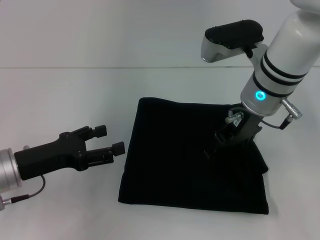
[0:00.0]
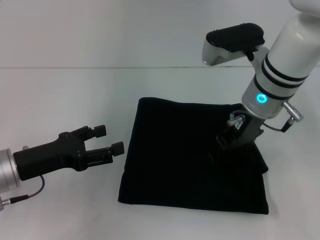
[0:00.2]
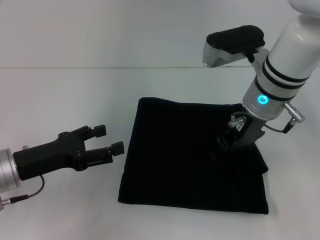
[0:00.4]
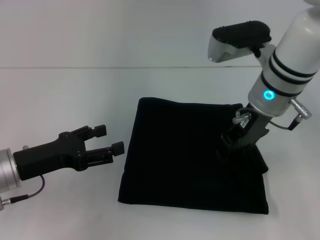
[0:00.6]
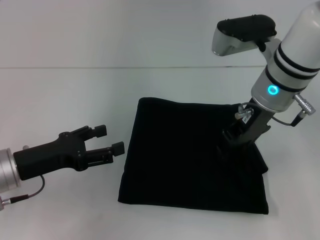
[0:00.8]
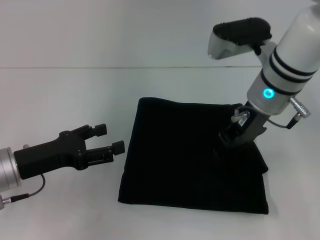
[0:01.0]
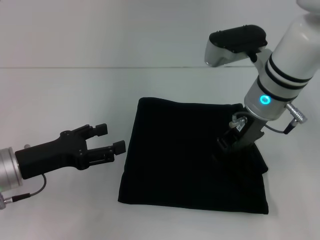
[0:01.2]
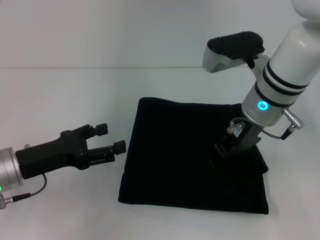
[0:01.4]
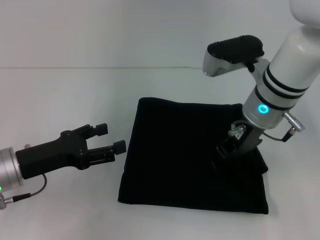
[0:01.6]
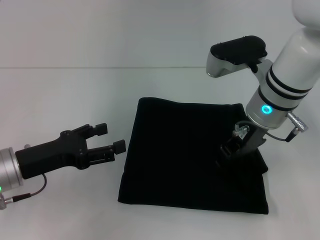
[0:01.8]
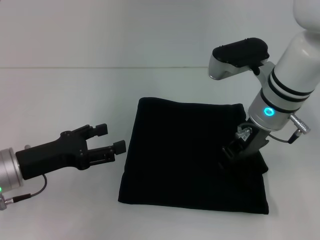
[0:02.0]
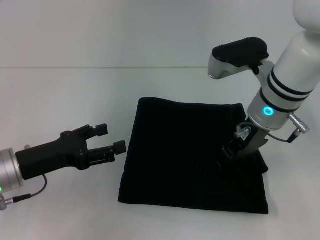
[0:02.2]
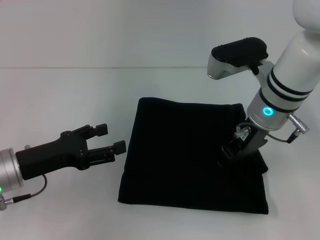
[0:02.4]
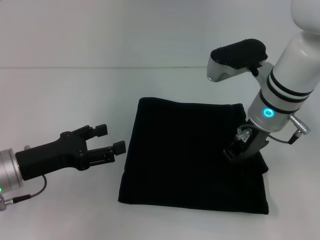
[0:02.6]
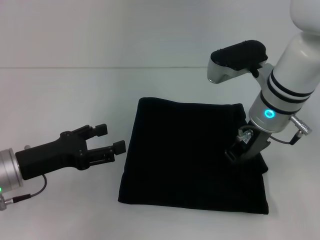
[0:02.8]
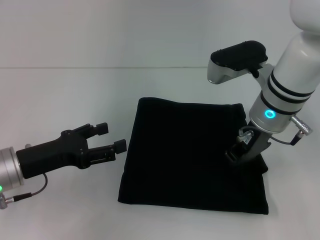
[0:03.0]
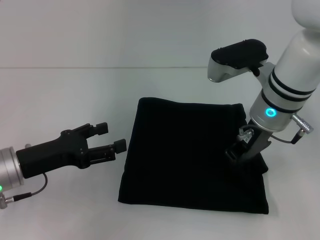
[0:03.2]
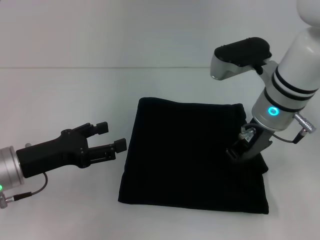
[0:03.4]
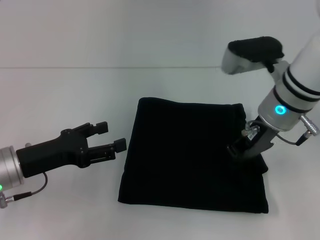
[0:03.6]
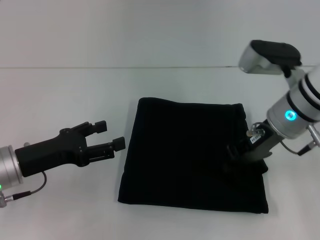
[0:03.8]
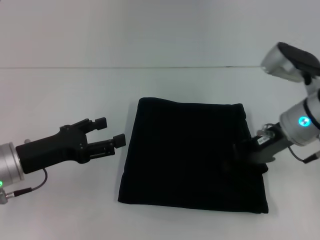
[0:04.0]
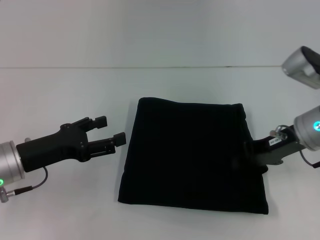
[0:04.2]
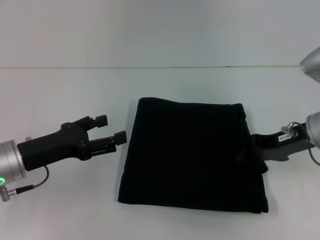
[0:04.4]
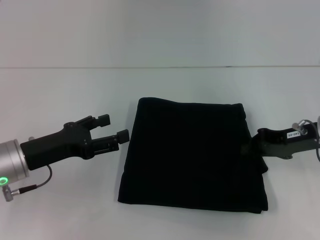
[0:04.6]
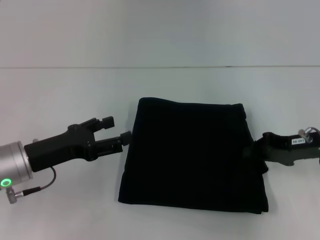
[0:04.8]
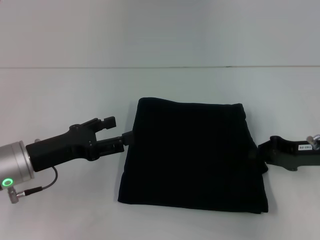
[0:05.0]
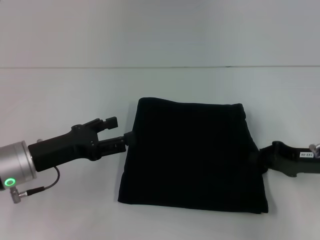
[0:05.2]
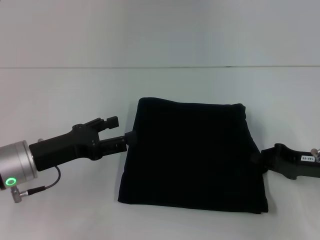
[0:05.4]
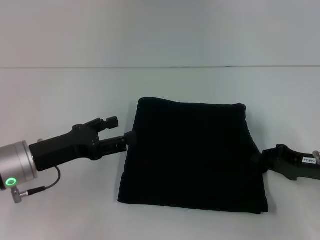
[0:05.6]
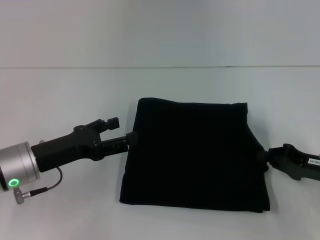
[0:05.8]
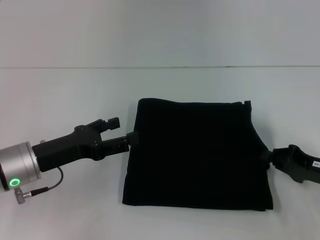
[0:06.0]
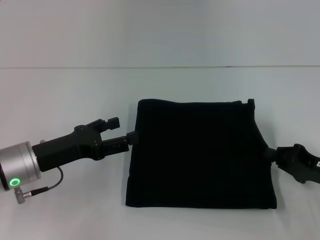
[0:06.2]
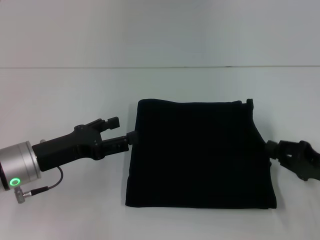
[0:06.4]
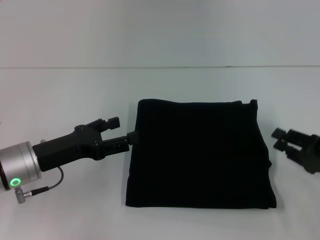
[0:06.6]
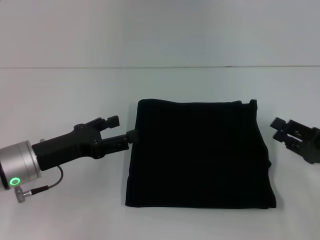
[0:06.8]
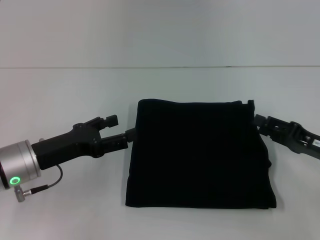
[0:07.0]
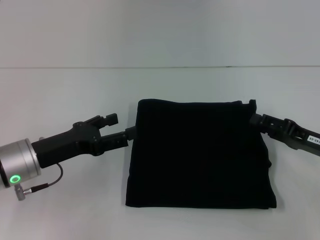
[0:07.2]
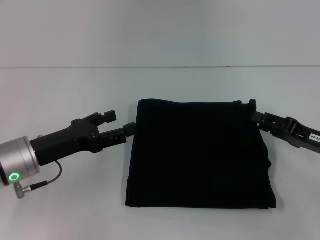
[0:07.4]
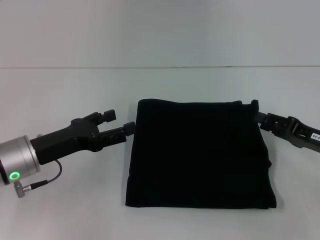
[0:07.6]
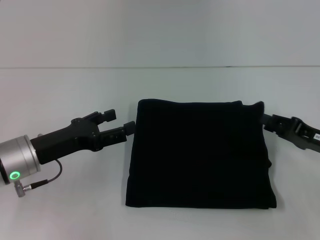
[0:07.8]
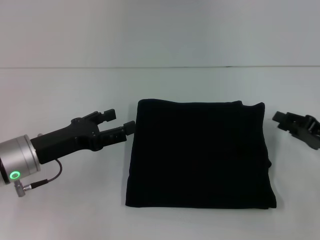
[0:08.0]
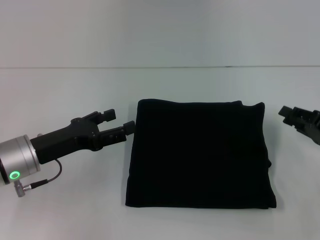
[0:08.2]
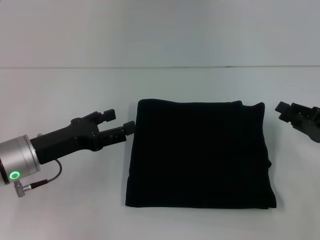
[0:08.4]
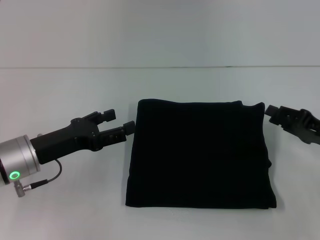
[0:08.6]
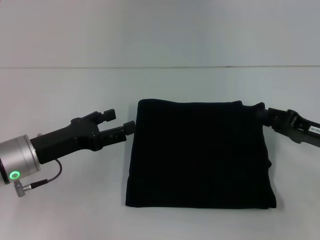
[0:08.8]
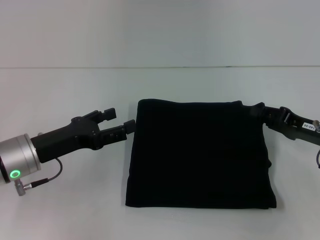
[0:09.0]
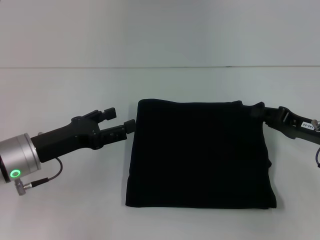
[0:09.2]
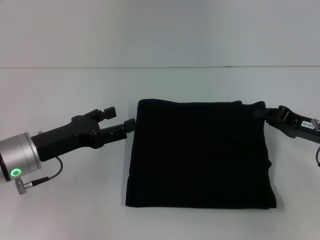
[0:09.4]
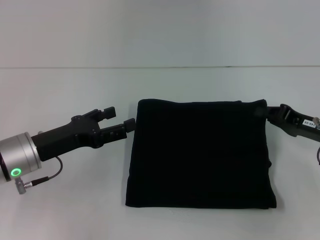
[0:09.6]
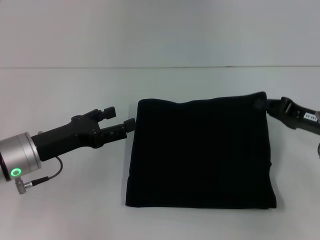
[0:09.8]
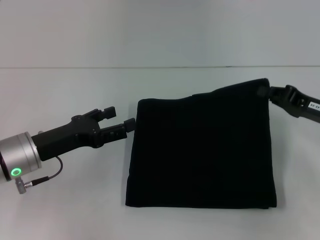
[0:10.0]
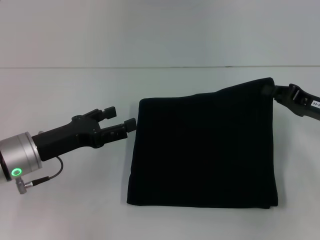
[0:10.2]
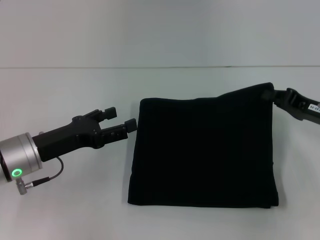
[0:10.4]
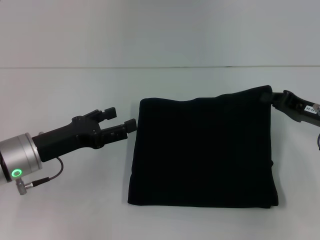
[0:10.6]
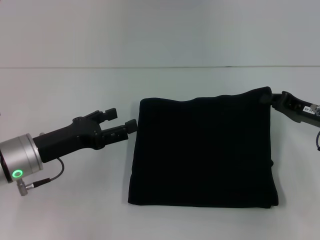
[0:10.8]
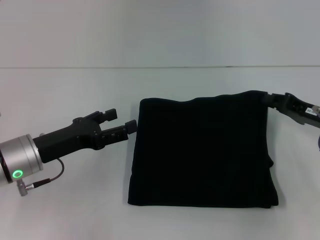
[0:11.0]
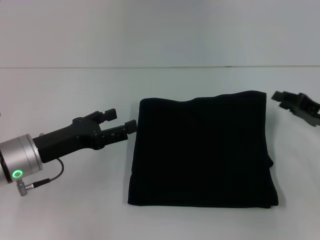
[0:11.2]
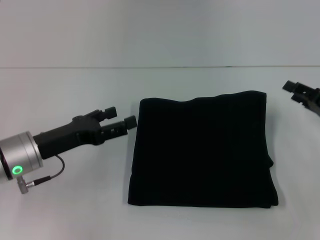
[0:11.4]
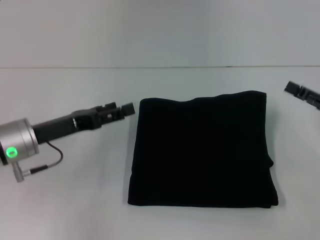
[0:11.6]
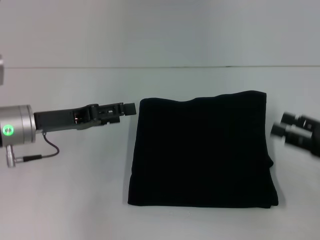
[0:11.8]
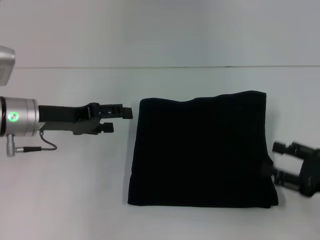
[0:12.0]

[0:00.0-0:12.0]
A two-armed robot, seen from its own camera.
0:00.0 to 0:01.6: The right gripper closes up.
0:01.6 to 0:03.0: The right gripper closes its fingers.
0:03.0 to 0:04.4: The right gripper travels to the right by some 10 cm.
0:04.4 to 0:06.0: The right gripper goes some 15 cm downward, backward and to the right.
0:06.0 to 0:07.6: The right gripper opens its fingers.
0:07.6 to 0:09.0: The grippers move only a little.
0:09.0 to 0:10.4: The right gripper closes.
0:10.4 to 0:12.0: The left gripper is displaced forward by some 5 cm. The right gripper heads backward, covering roughly 10 cm, and opens.

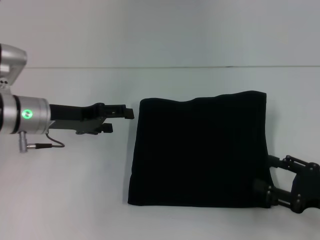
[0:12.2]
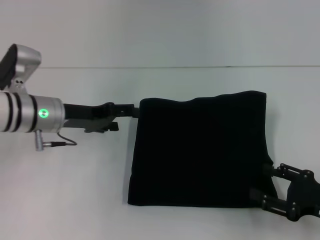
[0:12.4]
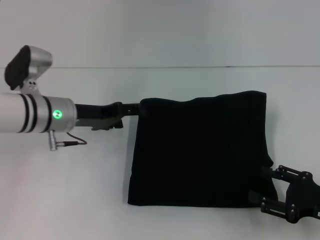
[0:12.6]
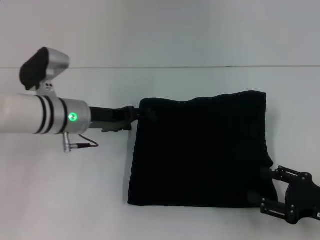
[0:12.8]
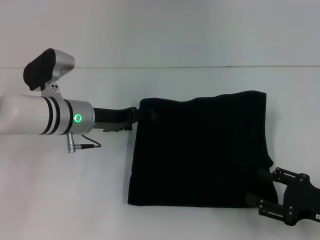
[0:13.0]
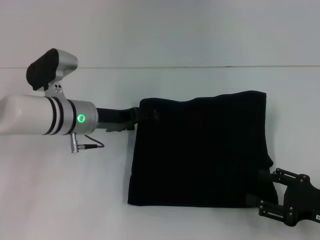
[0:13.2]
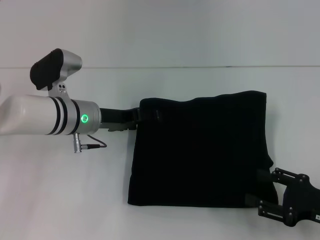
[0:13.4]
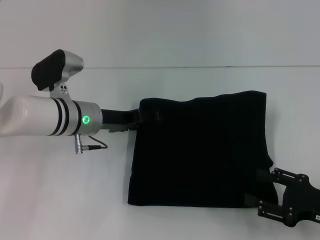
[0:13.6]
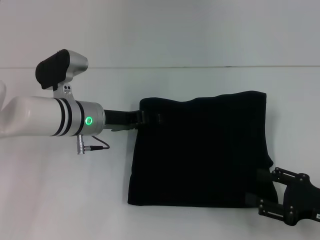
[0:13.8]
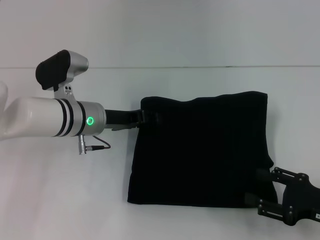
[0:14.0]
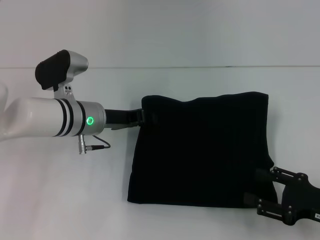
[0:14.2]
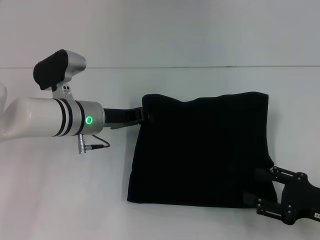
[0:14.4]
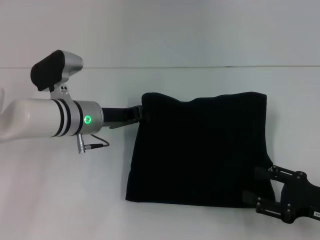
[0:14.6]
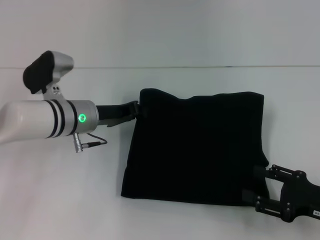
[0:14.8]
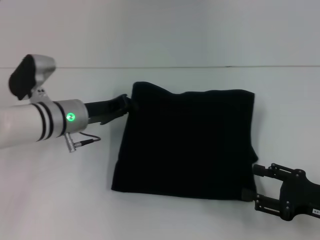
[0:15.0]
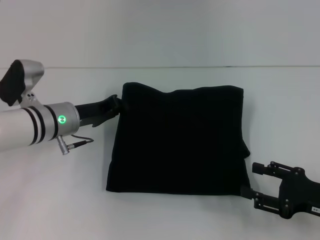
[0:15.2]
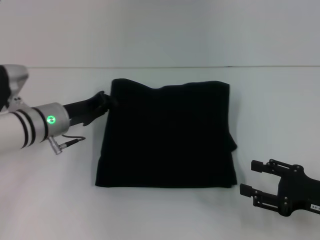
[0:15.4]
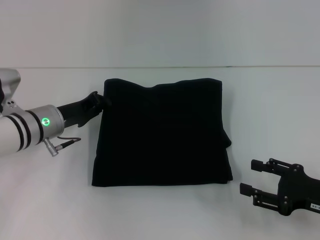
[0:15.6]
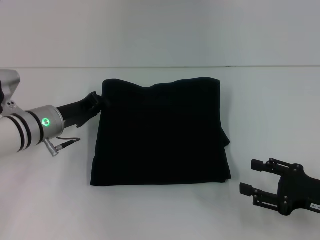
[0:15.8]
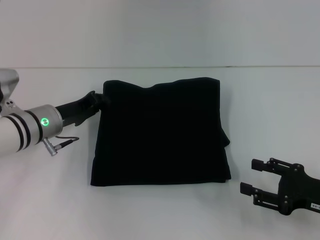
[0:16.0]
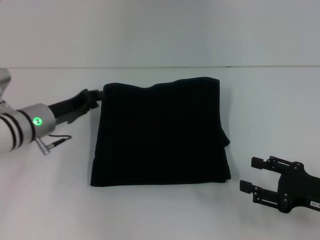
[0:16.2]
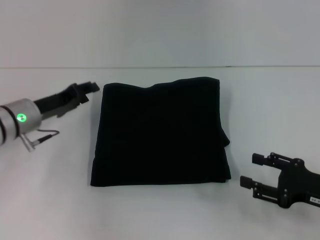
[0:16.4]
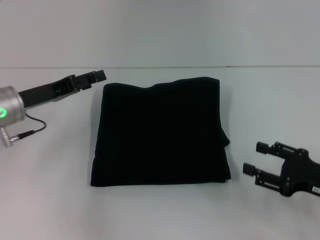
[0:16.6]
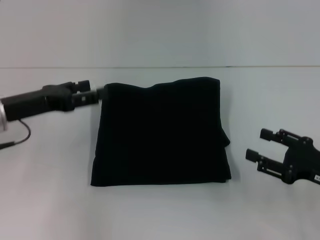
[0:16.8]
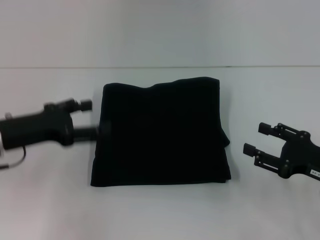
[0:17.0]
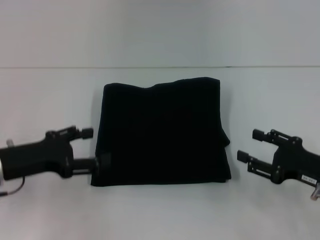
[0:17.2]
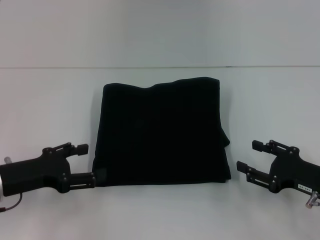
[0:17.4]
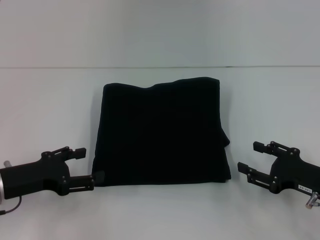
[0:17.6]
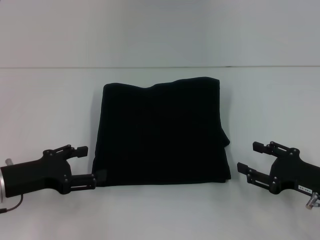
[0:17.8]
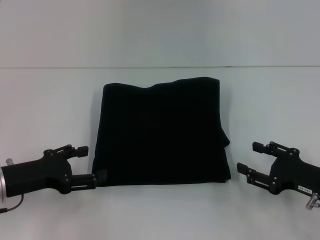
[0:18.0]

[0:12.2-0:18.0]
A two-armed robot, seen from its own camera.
0:12.2 to 0:13.6: The left gripper moves to the right, roughly 10 cm.
0:13.6 to 0:15.0: The left gripper closes its fingers.
0:15.0 to 0:16.6: The left gripper shifts roughly 10 cm to the left, and opens up.
0:16.6 to 0:18.0: The left gripper moves backward, roughly 10 cm, and opens up.

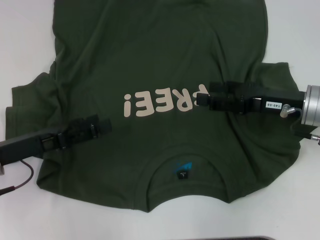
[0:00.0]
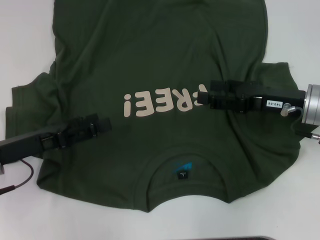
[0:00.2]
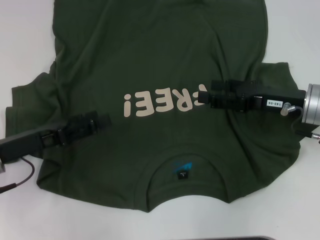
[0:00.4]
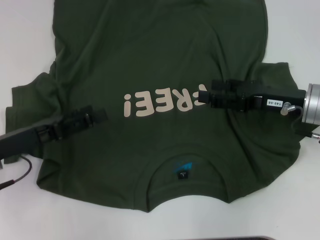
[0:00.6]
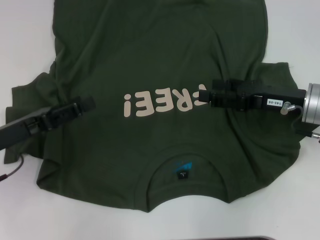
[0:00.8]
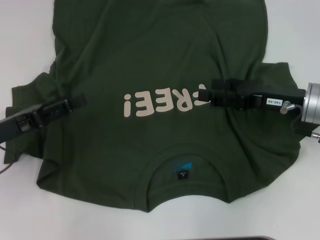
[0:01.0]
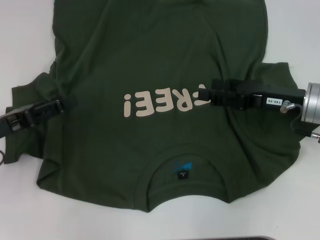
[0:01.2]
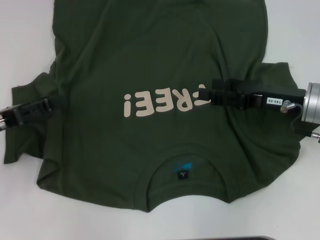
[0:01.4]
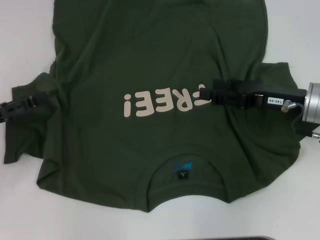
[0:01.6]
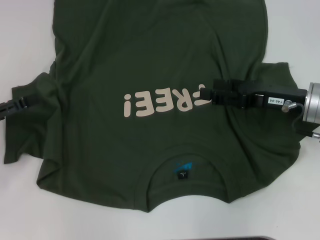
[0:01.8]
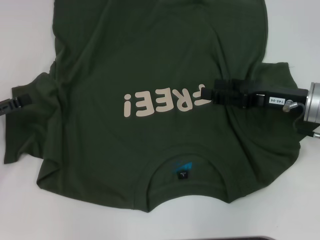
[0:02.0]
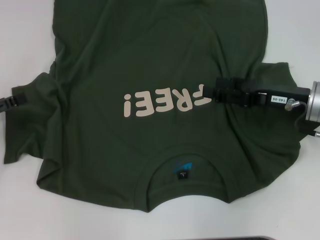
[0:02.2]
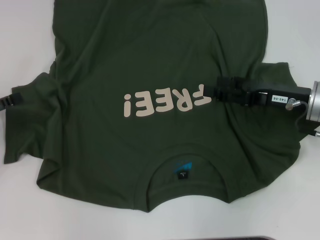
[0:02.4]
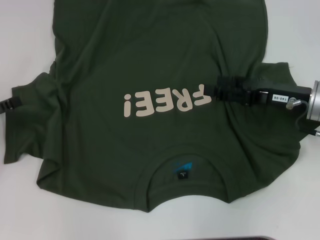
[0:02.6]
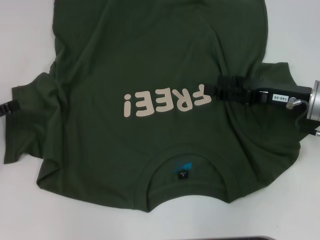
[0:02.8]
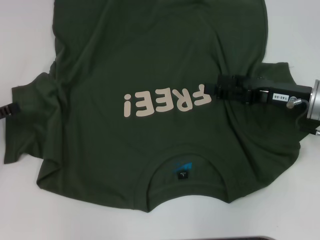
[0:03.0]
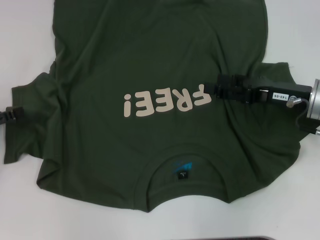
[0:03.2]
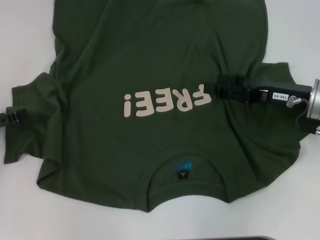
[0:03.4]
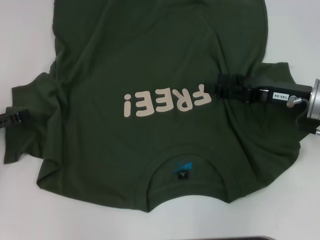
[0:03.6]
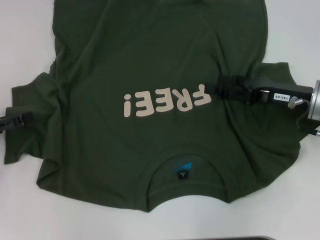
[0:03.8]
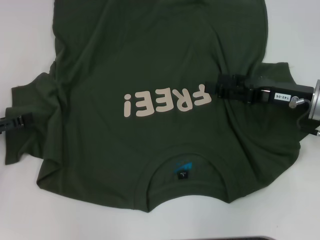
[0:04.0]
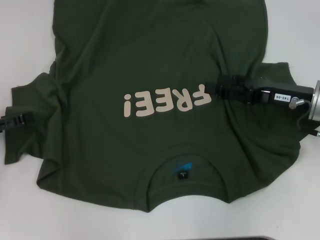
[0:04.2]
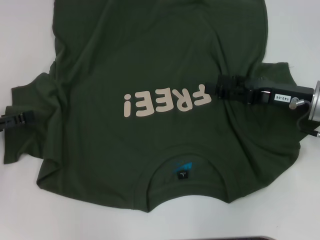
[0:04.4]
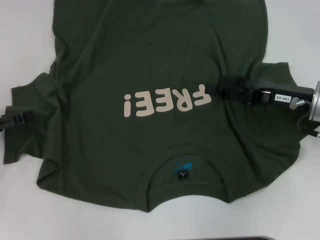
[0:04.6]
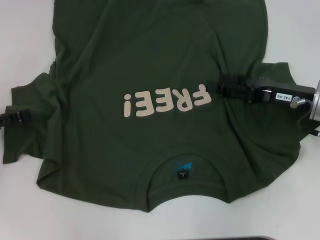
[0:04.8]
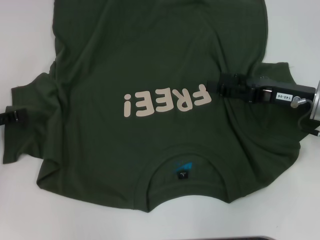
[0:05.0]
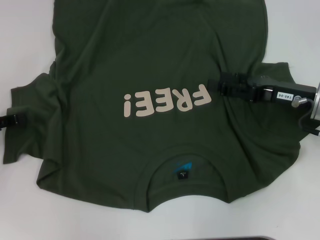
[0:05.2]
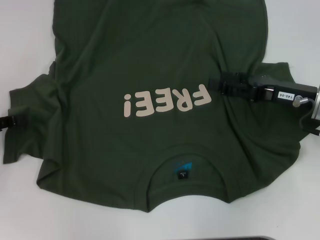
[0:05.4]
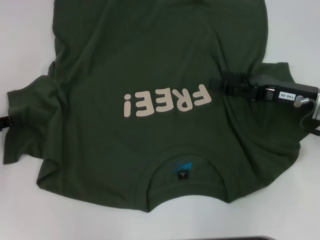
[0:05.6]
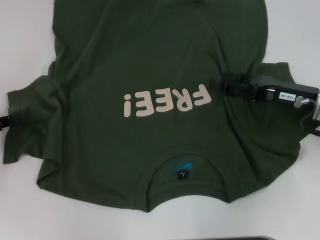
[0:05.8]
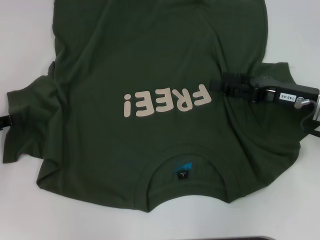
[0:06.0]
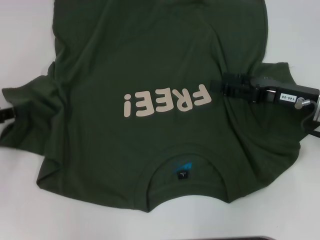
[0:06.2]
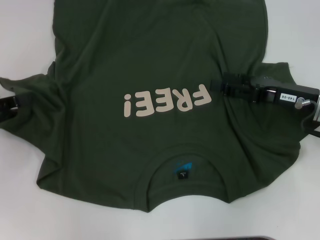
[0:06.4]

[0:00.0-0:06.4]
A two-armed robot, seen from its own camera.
0:00.0 to 0:01.6: The left gripper is displaced to the left by approximately 5 cm.
0:01.6 to 0:04.8: The grippers move only a little.
0:04.8 to 0:06.4: The left gripper closes its fingers.
